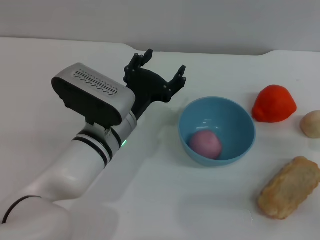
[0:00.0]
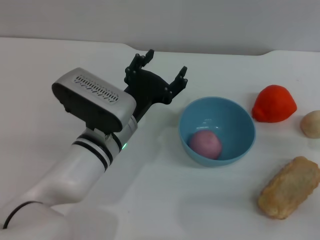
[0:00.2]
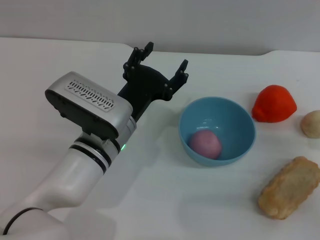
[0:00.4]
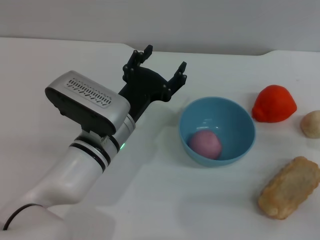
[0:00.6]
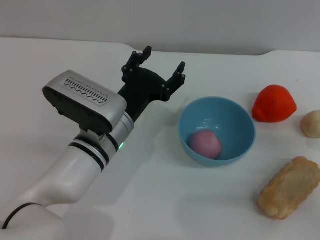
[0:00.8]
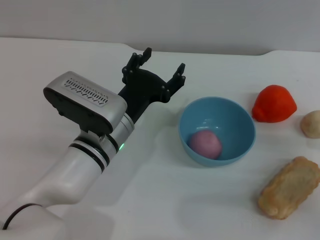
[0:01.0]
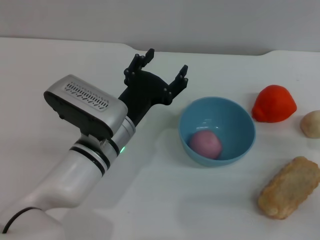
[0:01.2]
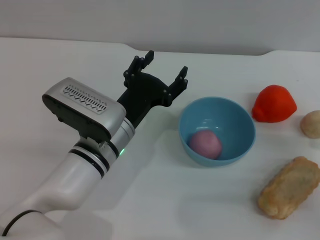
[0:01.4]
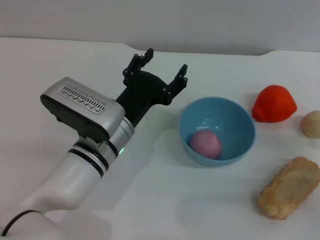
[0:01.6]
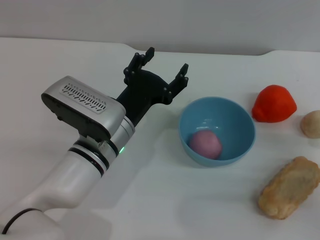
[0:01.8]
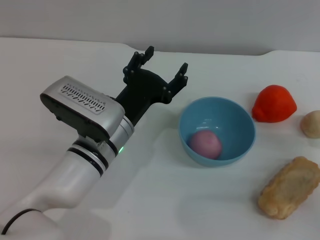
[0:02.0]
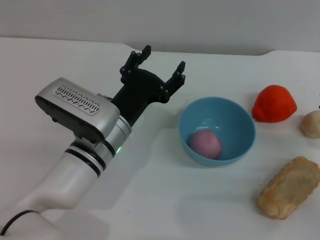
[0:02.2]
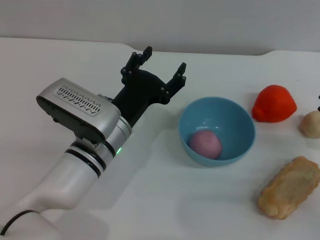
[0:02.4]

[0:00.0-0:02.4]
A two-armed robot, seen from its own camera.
Task of the whole recording: put the peach into the blue bowl and pour it out repeatedly.
0:00.0 to 0:01.2: There are only small adjustments of the grippers.
0:01.2 to 0:02.4: Both grippers stay put.
